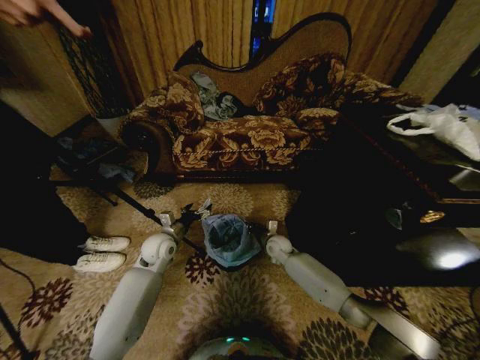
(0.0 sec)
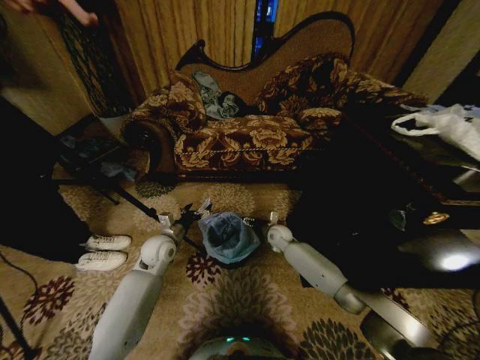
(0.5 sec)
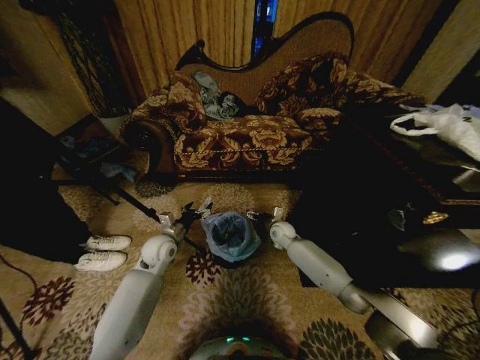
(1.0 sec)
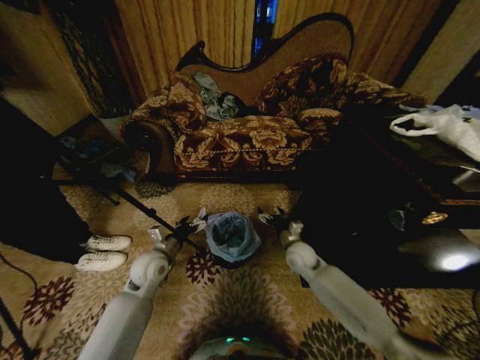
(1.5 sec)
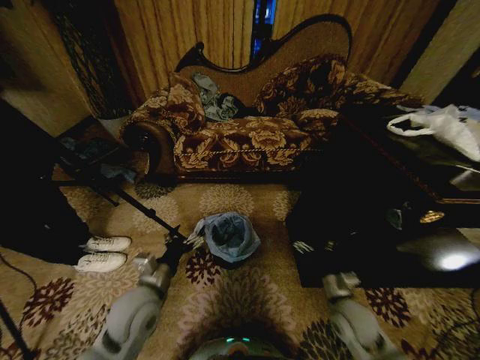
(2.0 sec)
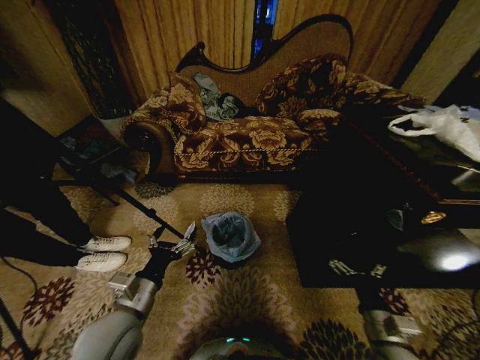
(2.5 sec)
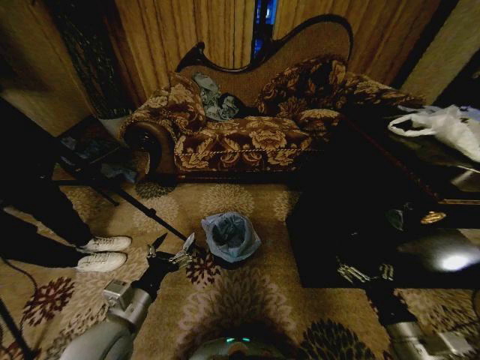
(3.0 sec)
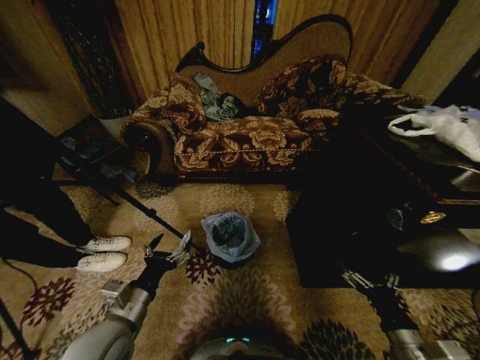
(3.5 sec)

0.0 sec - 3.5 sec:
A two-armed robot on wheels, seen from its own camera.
Task of the whole recording: Place a garbage bag over the trash bin.
0.0 sec - 2.0 sec: The right gripper goes roughly 30 cm backward and to the right, and opens. Meanwhile the left gripper is displaced backward by about 20 cm.
2.0 sec - 3.5 sec: The right gripper moves backward and to the right, some 15 cm; the left gripper travels backward by roughly 5 cm.
